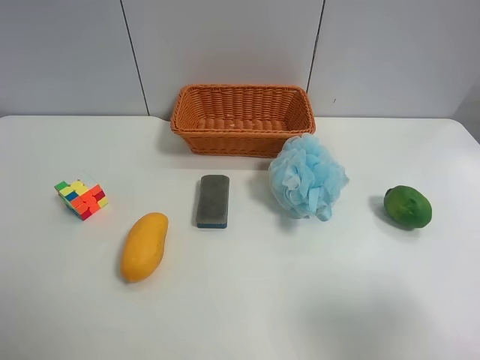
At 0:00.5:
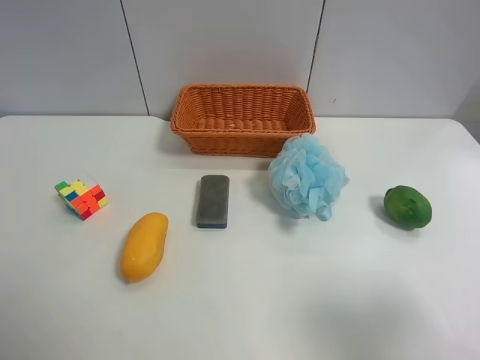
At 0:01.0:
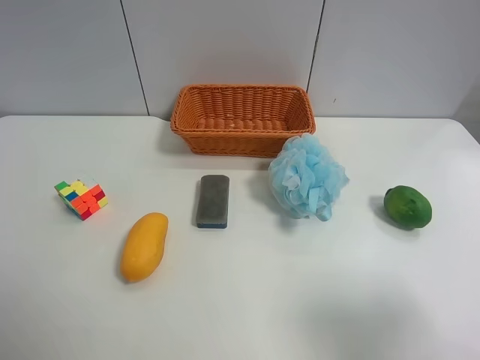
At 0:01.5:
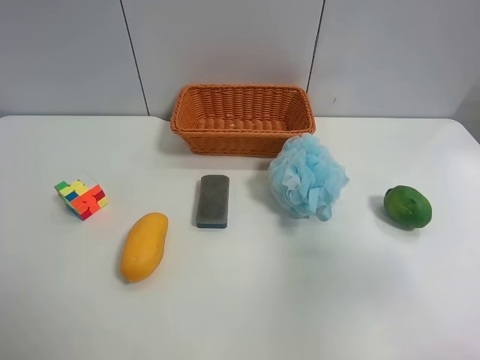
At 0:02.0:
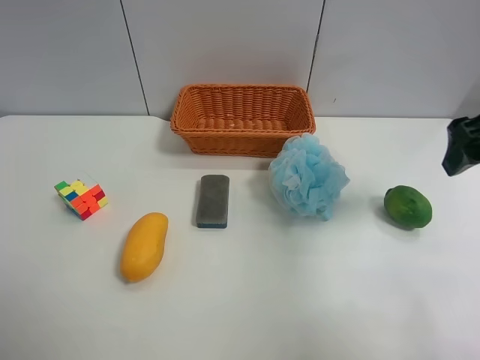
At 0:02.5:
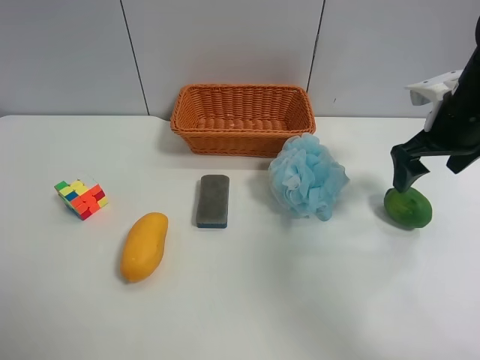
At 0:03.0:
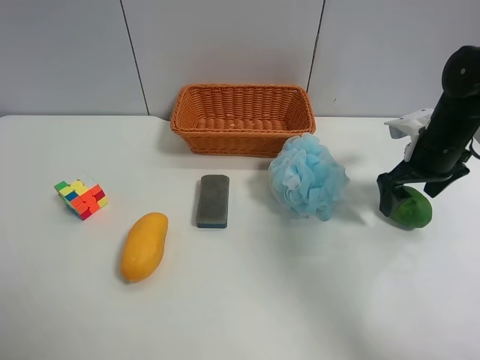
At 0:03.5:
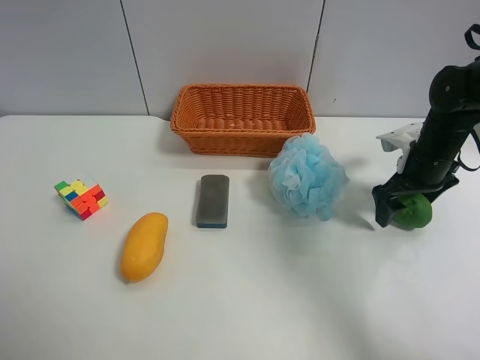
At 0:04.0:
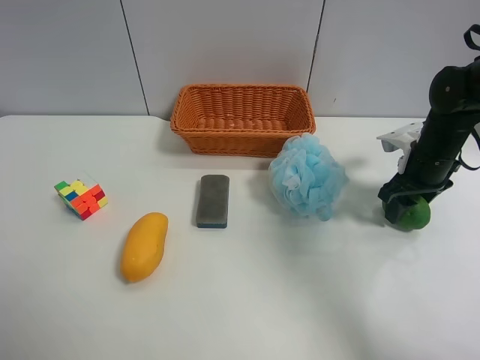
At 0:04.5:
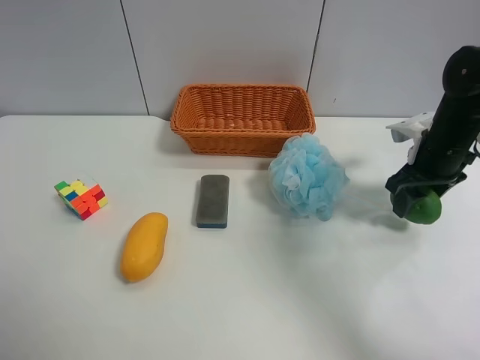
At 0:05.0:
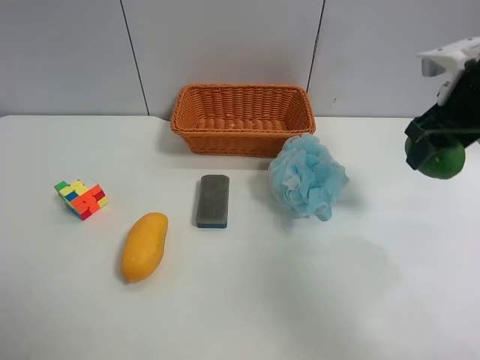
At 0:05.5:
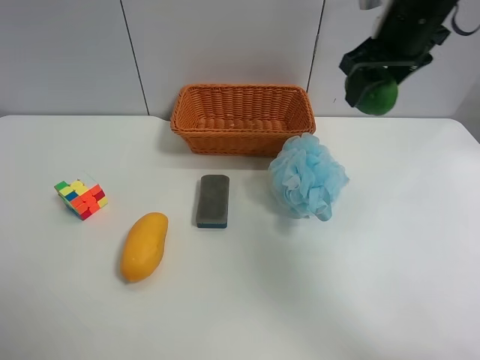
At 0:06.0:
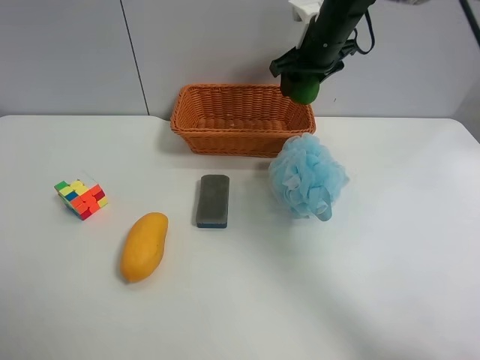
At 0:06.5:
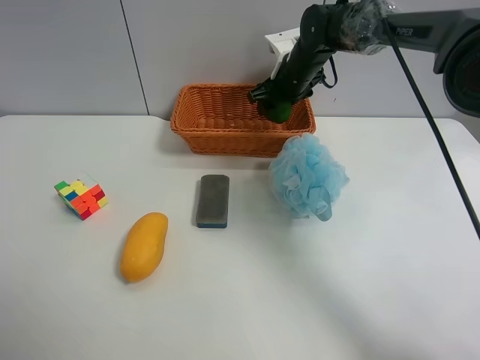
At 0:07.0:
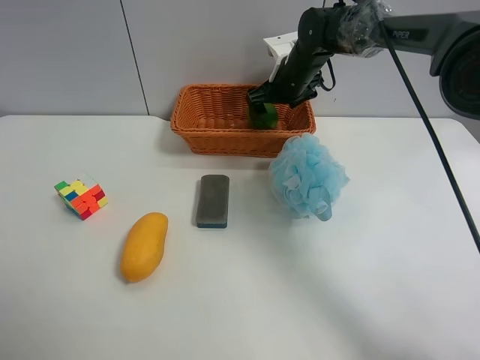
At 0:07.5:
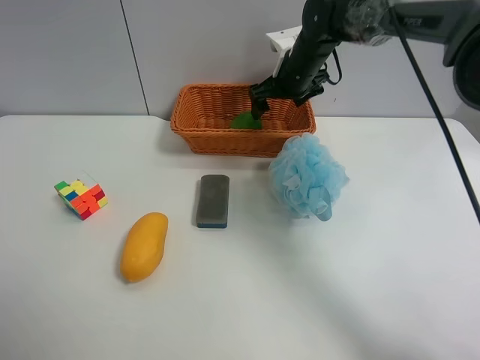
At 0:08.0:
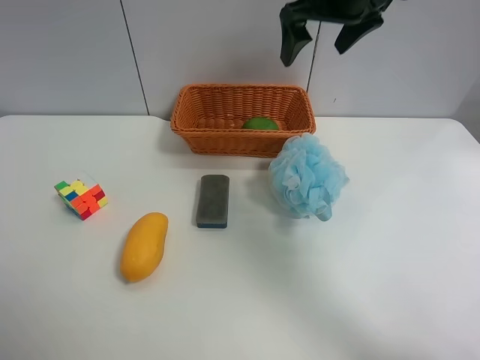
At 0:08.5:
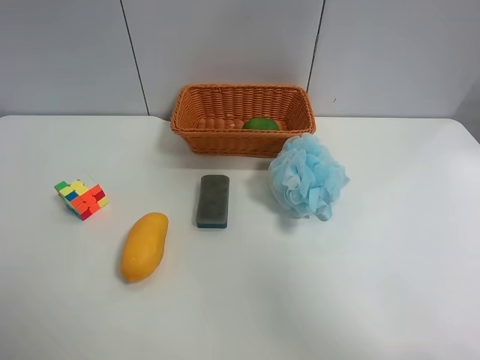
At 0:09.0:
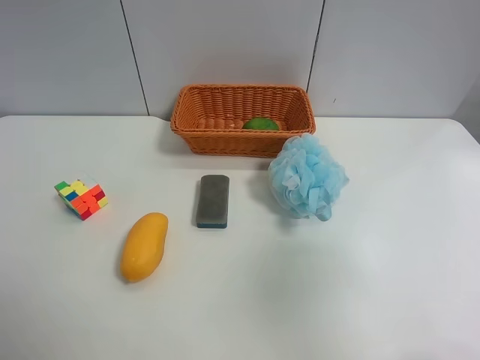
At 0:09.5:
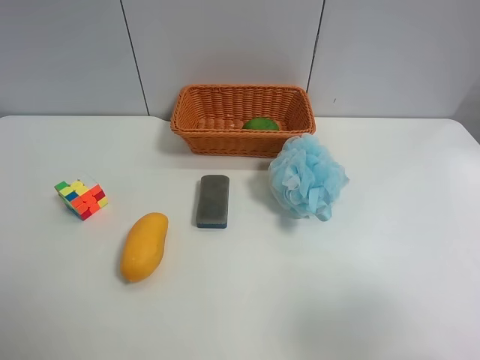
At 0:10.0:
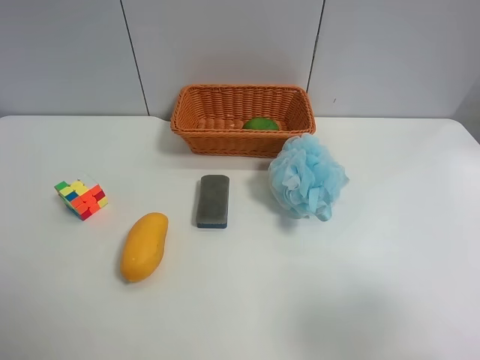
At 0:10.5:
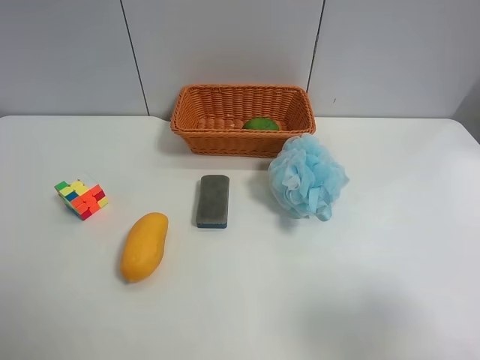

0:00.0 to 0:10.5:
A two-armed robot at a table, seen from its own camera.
Task of the whole recording: Randomly grab green lemon or mangoes from the table and put them in a basket.
Step, 0:00.0 to 0:04.0: Grasp the Lemon with the right gripper.
Step, 0:04.5 to 0:07.5: Place the Lemon into the basket with the right gripper.
0:00.0 to 0:02.0: The right gripper travels forward by approximately 25 cm.
0:02.0 to 0:04.0: The right gripper moves downward and forward, about 20 cm, and closes up.
0:04.0 to 0:06.5: The right gripper travels to the left and forward by approximately 25 cm.
0:06.5 to 0:08.5: The right gripper travels upward and backward by approximately 35 cm, and opens up.
0:08.5 to 0:10.5: The right gripper heads backward and downward, covering some 30 cm.
